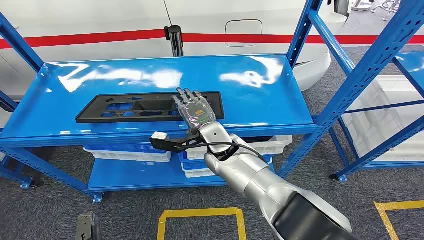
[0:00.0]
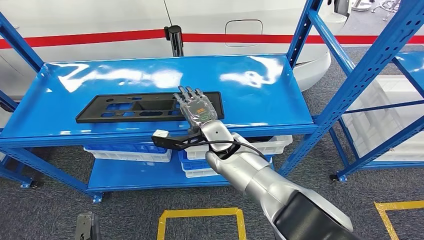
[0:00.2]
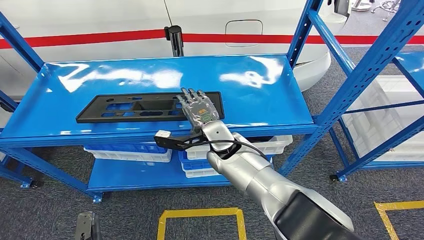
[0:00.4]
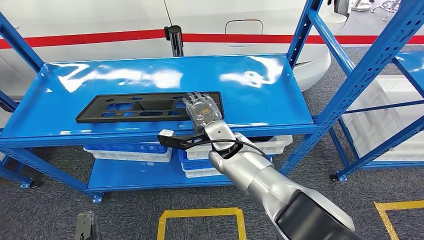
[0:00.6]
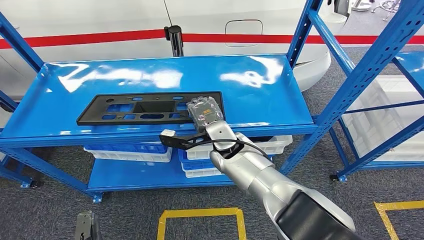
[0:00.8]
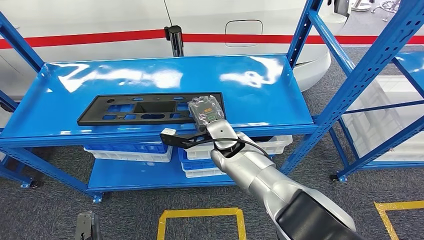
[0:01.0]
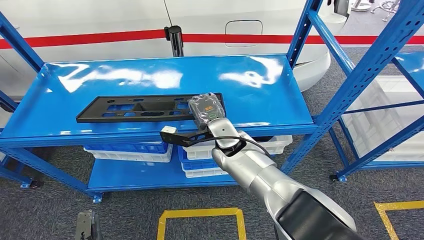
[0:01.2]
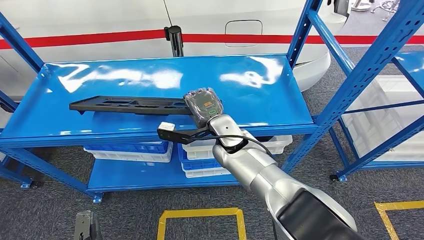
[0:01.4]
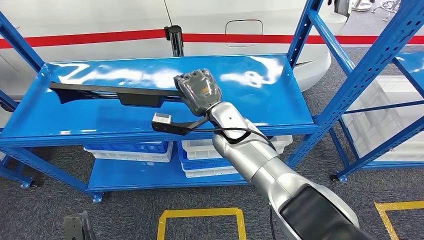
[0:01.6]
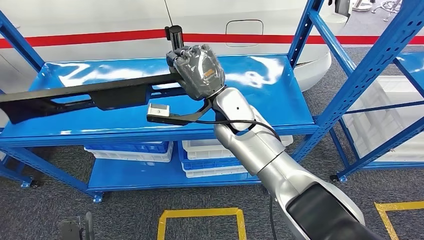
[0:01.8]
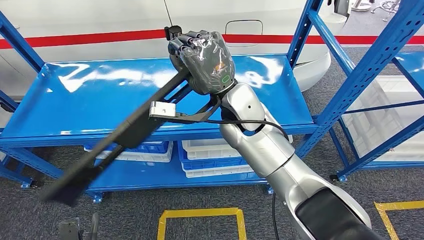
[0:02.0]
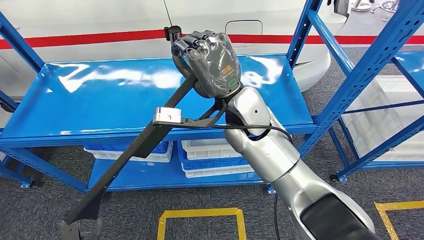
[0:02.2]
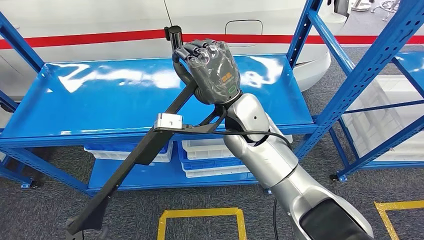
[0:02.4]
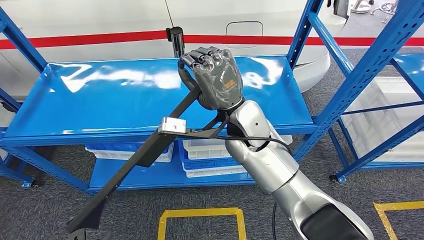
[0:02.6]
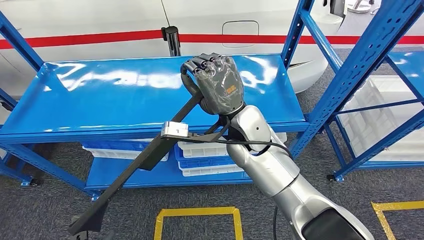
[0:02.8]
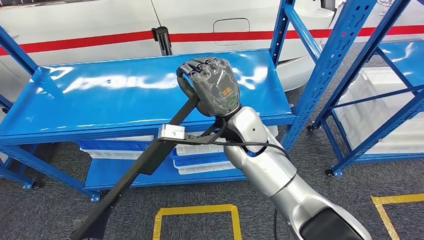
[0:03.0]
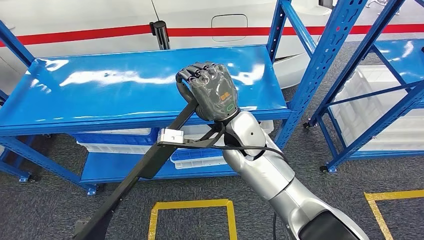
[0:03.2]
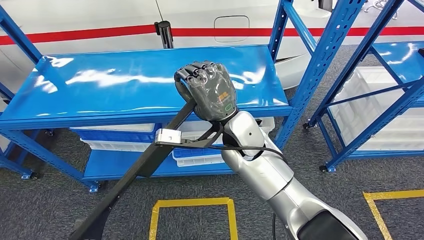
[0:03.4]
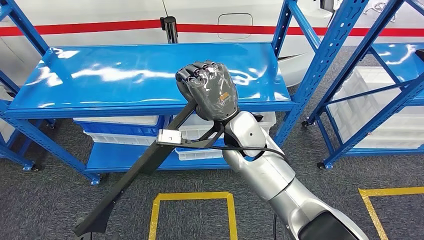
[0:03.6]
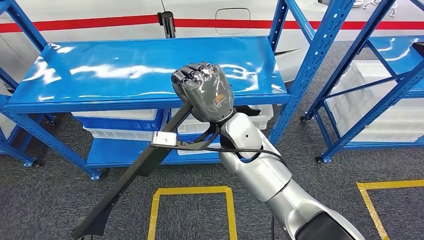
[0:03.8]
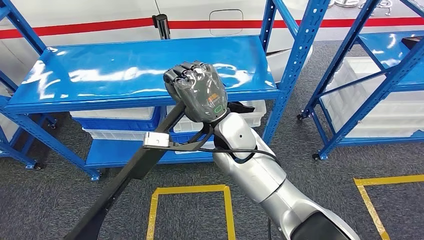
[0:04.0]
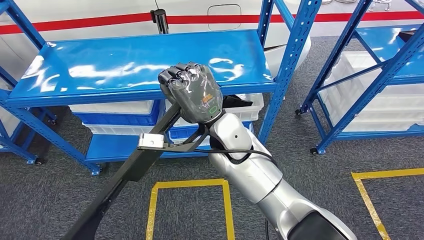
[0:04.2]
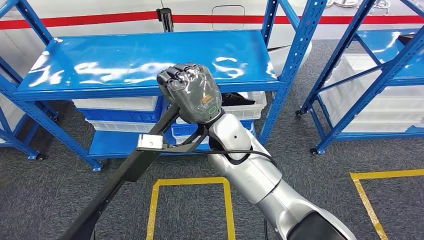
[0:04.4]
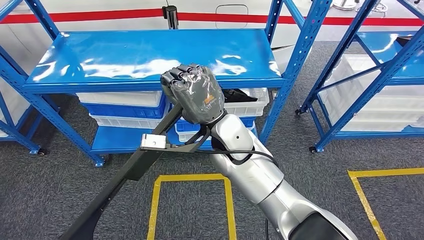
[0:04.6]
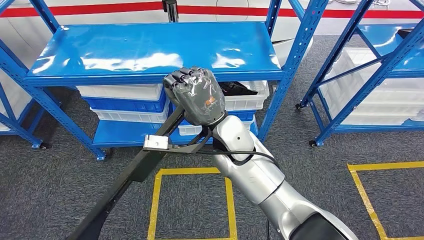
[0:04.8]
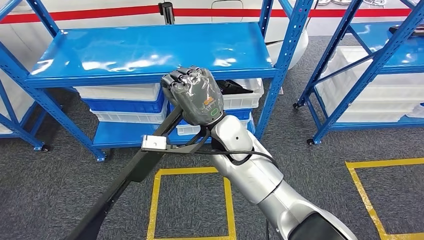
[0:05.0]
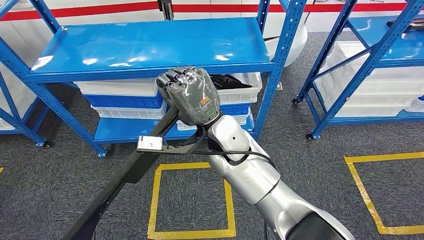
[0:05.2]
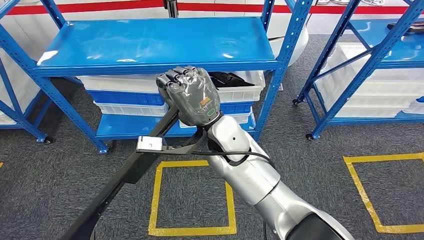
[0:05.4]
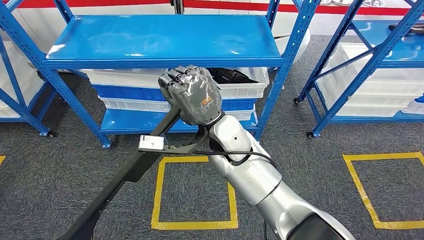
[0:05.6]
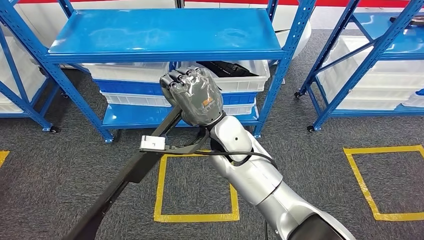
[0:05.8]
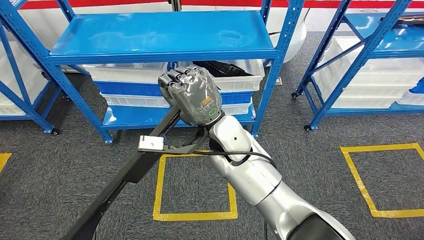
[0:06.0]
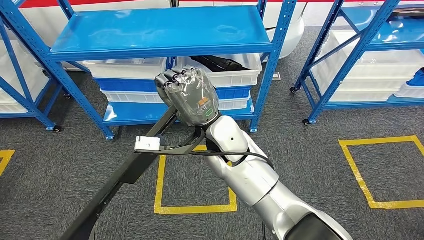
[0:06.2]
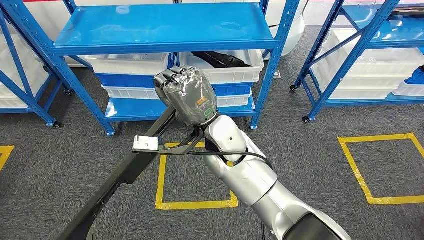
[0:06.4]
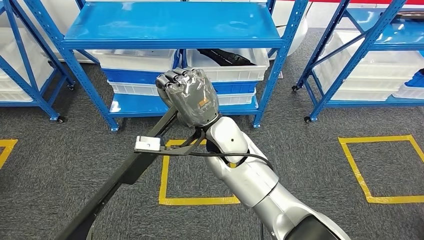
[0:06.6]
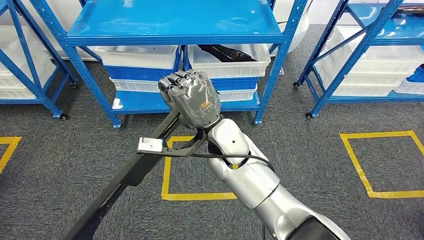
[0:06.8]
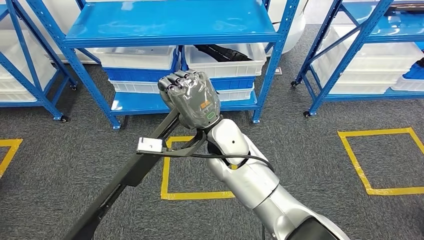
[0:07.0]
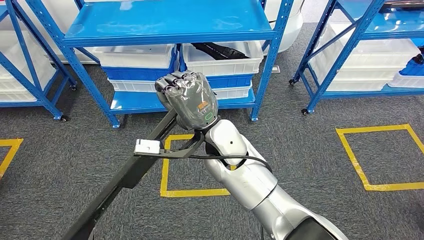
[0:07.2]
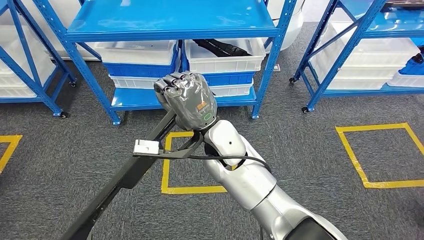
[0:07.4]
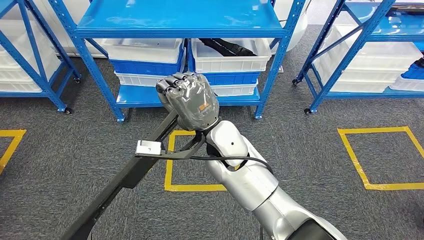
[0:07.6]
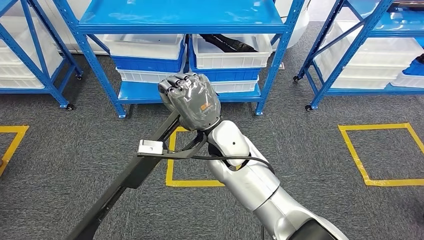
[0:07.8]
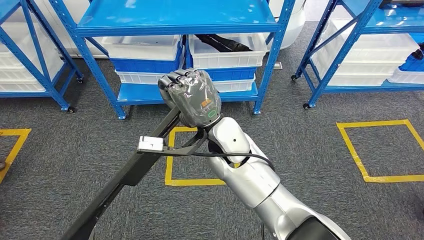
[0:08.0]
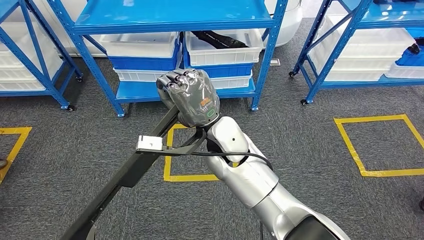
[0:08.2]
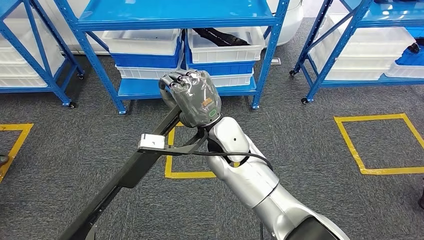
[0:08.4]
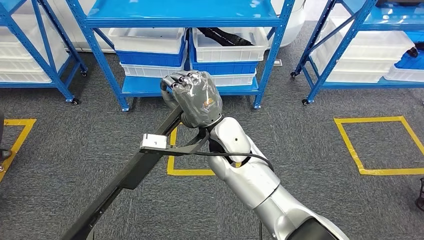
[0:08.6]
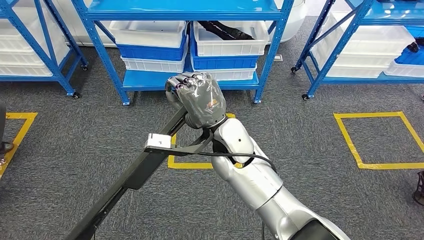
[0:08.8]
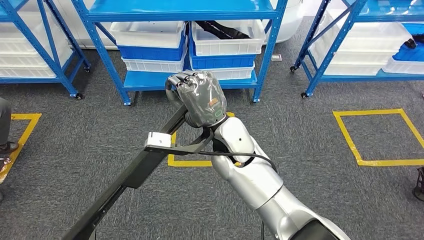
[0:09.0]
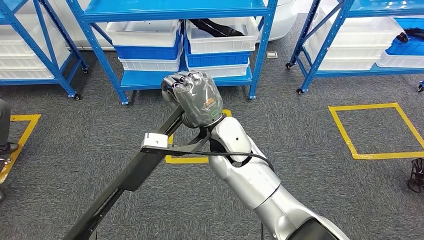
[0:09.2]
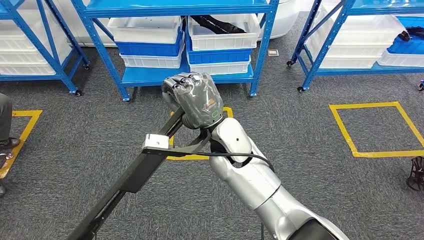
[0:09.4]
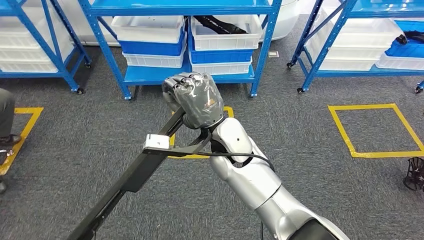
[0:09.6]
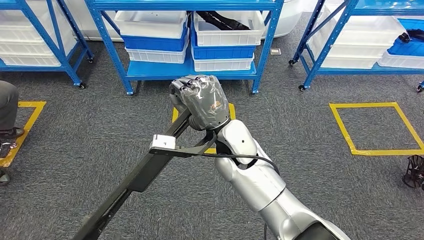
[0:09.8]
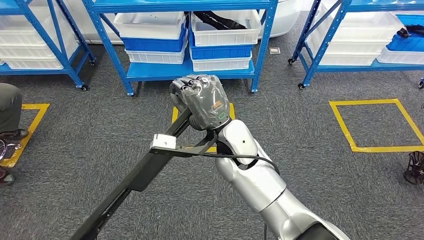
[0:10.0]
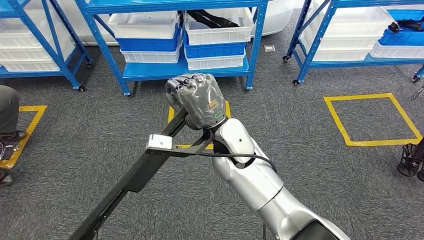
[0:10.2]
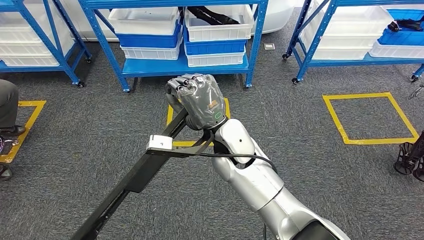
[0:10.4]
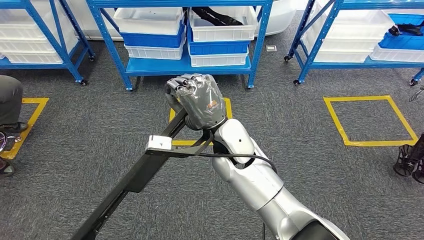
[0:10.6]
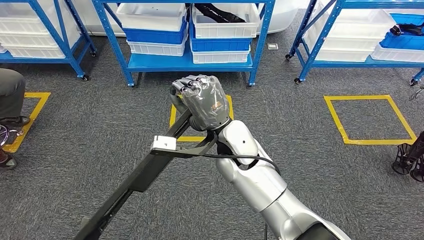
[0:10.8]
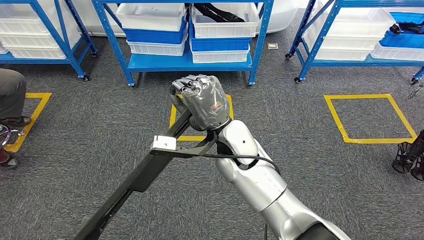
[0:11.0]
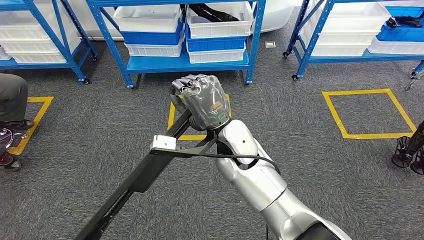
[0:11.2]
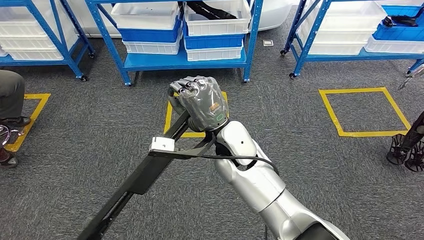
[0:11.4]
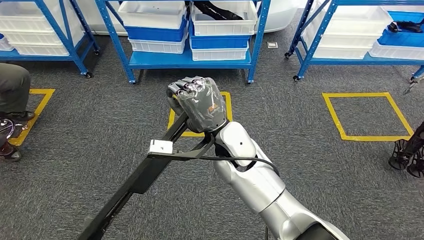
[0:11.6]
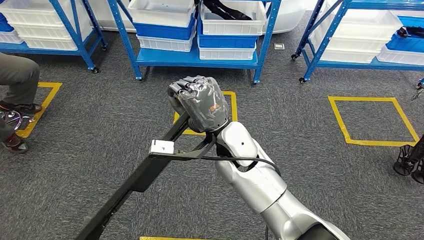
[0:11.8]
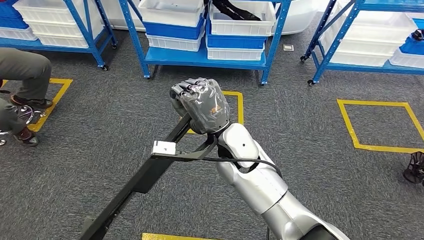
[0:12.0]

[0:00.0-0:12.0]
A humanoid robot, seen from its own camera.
Step, 0:00.0 to 0:07.0: Pick up the large material from the shelf.

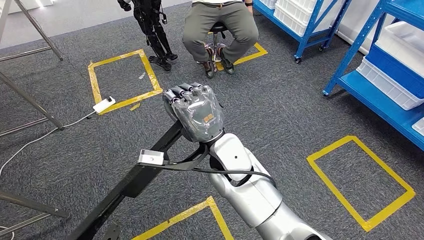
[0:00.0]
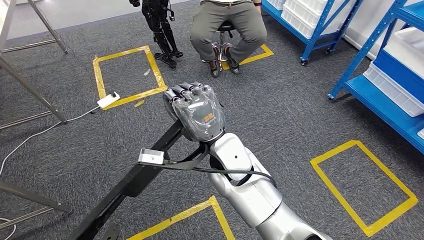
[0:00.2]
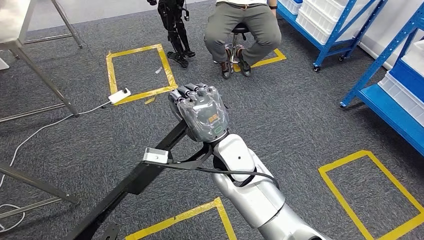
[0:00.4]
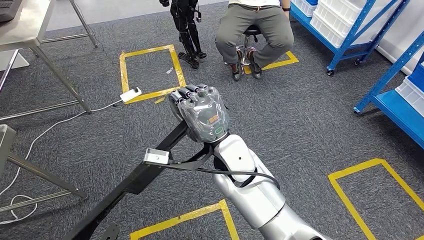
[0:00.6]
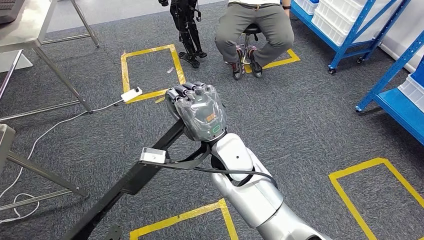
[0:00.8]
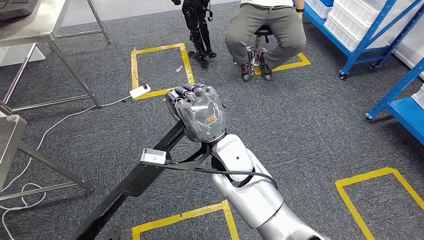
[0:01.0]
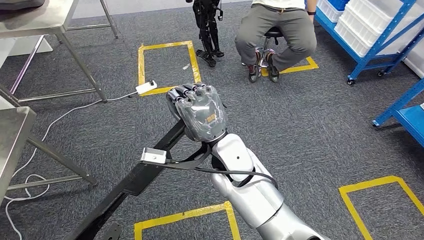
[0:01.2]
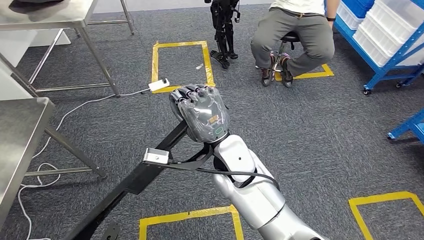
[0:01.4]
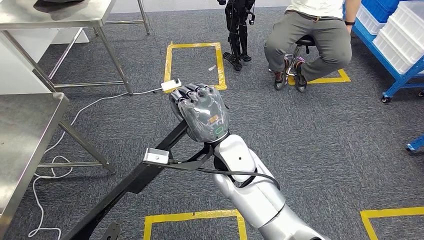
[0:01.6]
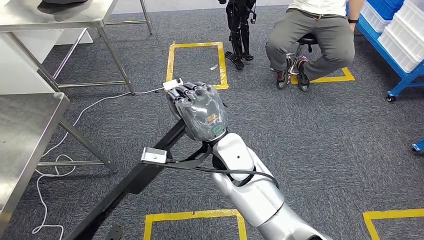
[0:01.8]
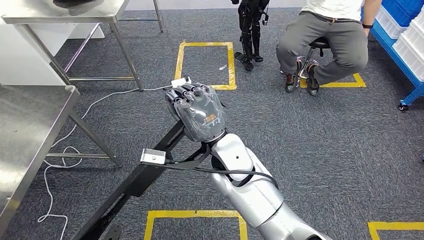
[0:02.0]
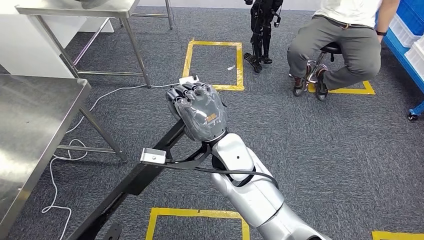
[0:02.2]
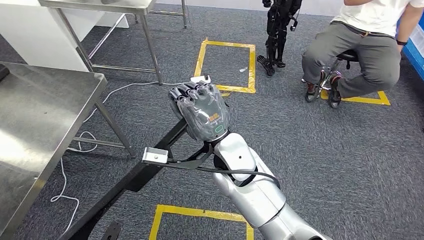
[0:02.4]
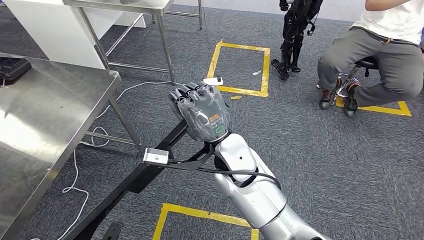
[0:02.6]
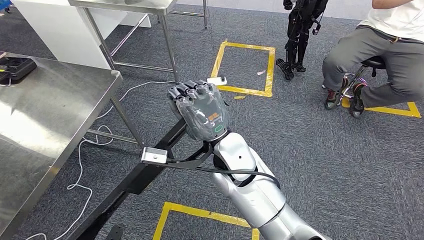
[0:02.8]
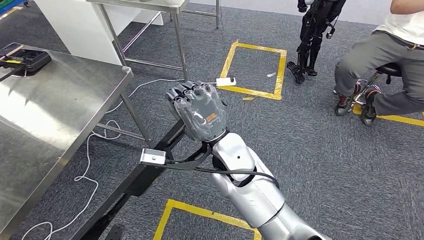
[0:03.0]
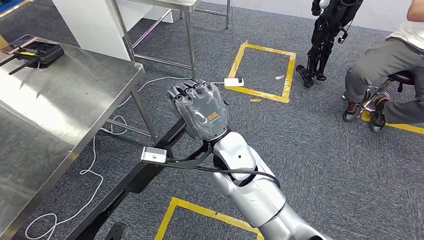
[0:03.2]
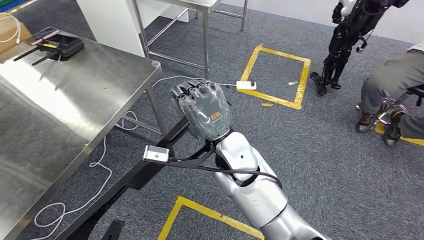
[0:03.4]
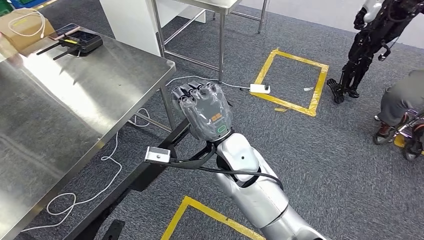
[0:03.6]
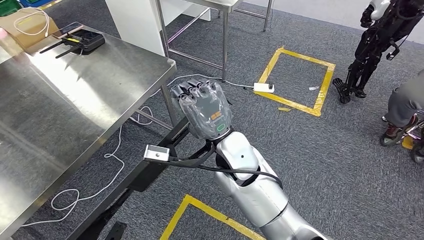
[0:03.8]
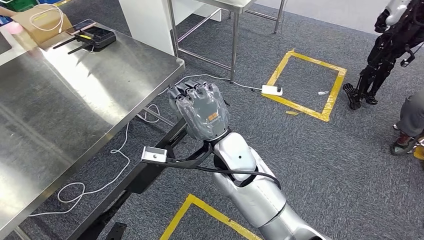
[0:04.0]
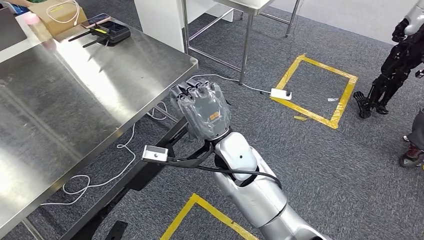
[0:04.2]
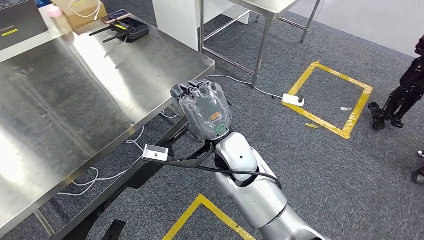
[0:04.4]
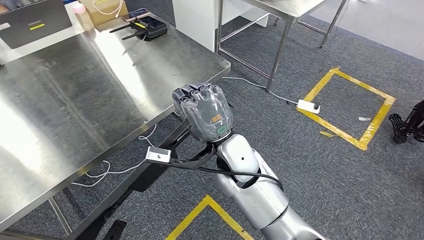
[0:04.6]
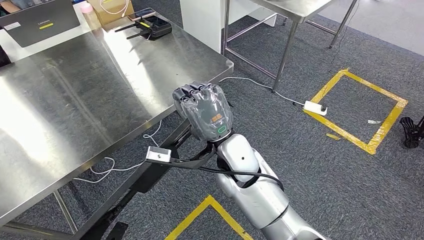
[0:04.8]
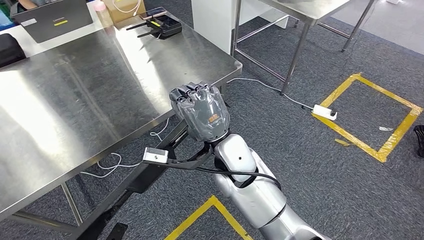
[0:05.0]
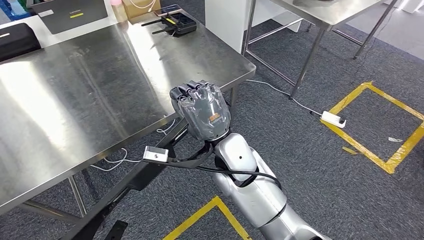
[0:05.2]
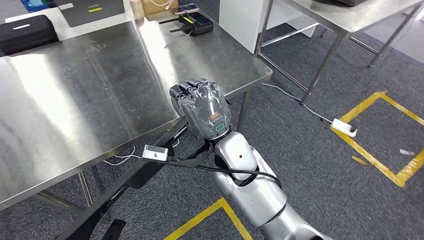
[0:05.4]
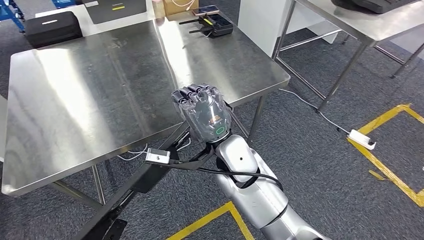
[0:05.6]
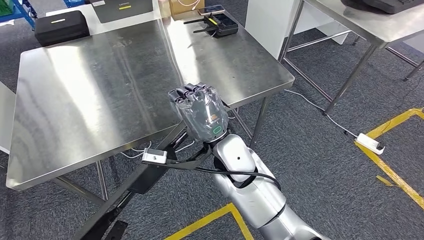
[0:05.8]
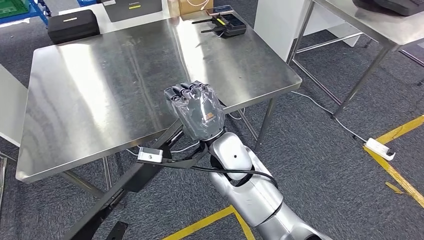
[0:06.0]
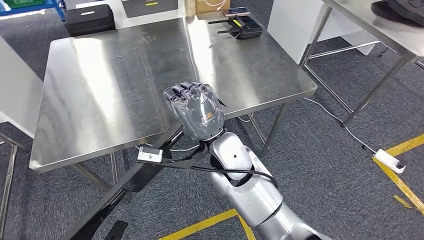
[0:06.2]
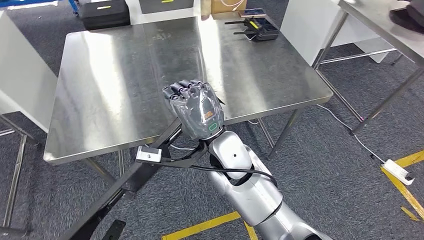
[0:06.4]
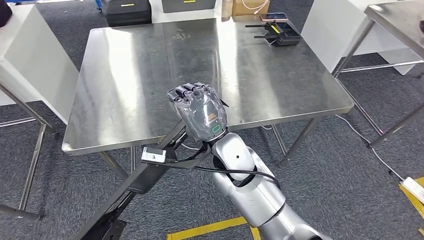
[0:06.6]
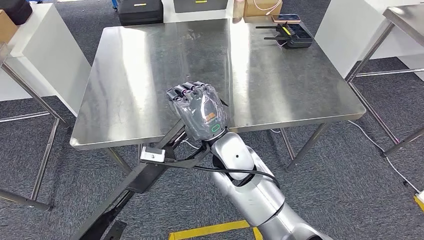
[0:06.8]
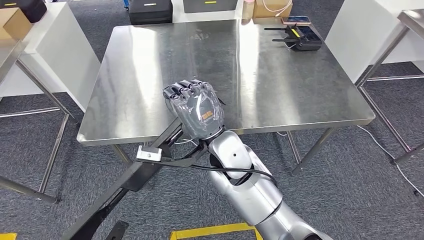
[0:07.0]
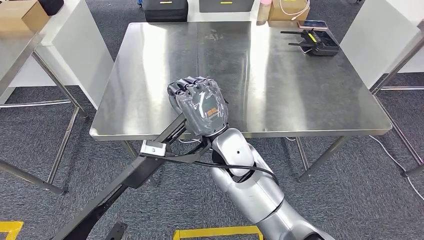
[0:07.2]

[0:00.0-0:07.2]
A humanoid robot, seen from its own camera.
Step, 0:00.0 to 0:04.2: Move the large material to the workbench.
